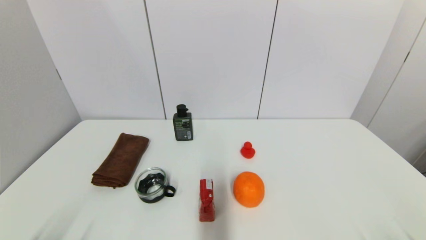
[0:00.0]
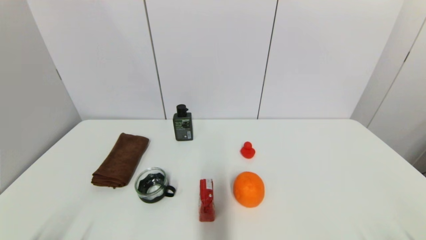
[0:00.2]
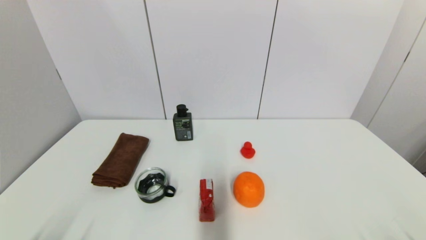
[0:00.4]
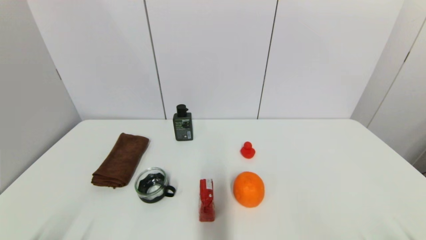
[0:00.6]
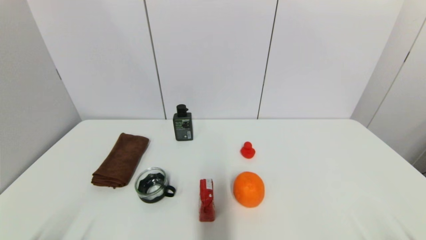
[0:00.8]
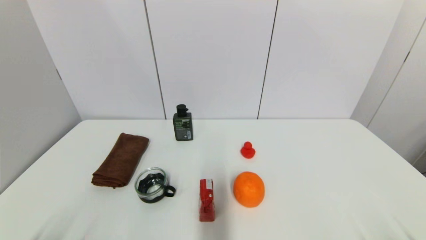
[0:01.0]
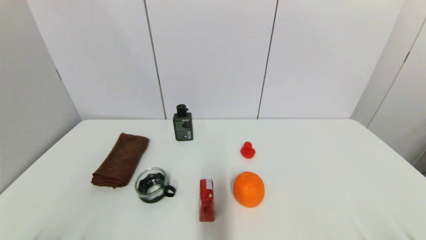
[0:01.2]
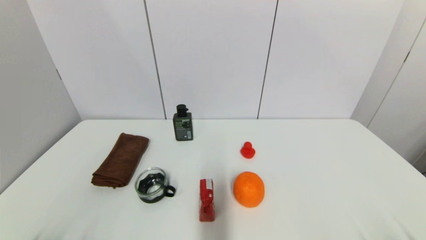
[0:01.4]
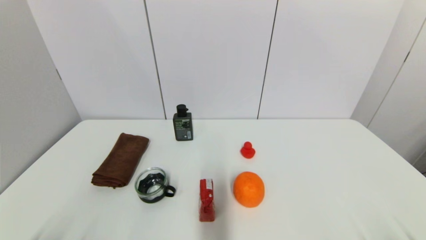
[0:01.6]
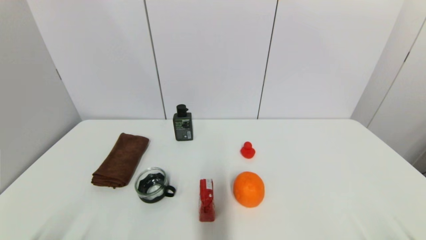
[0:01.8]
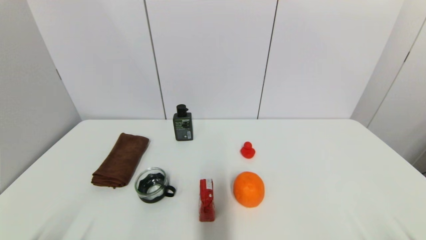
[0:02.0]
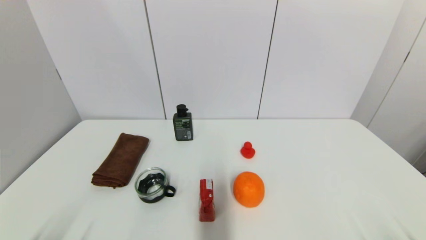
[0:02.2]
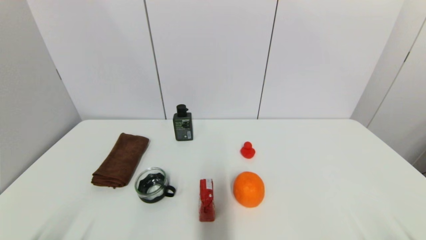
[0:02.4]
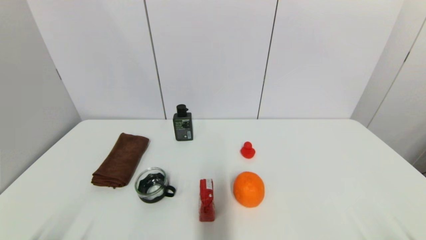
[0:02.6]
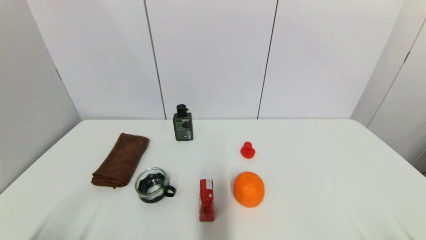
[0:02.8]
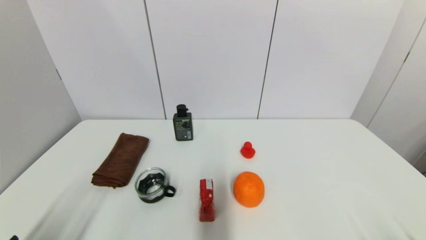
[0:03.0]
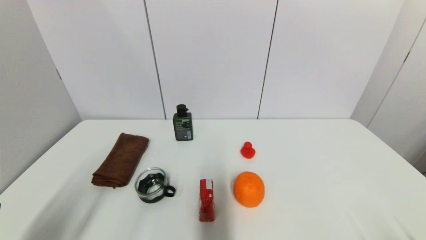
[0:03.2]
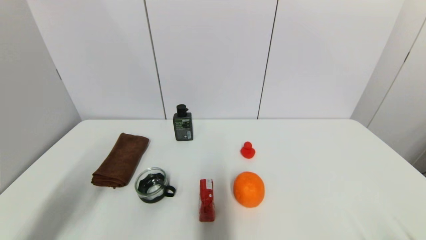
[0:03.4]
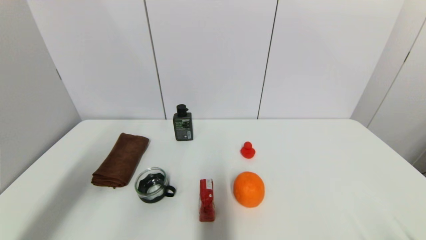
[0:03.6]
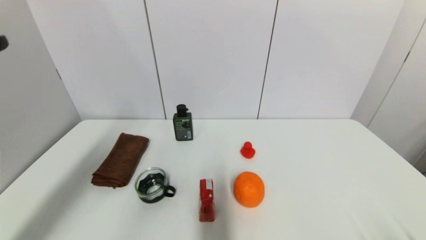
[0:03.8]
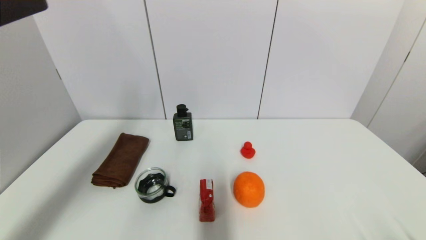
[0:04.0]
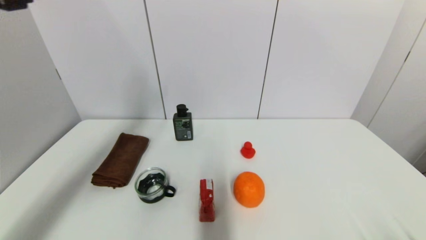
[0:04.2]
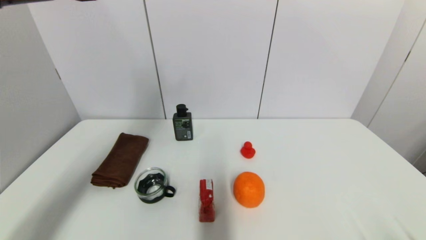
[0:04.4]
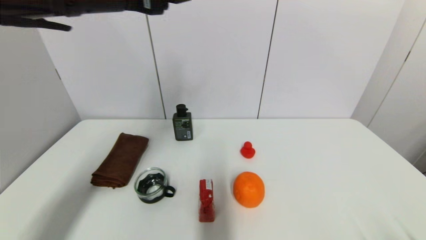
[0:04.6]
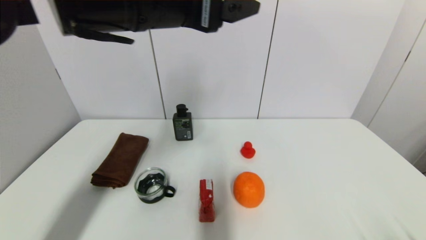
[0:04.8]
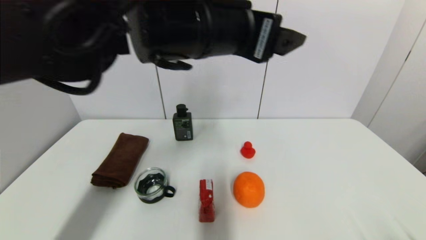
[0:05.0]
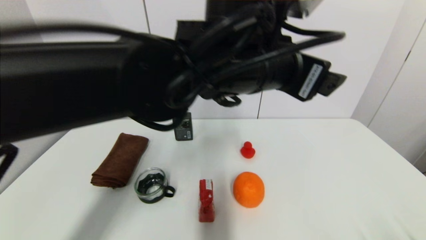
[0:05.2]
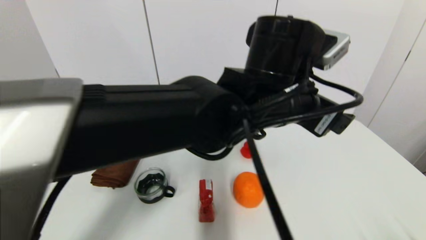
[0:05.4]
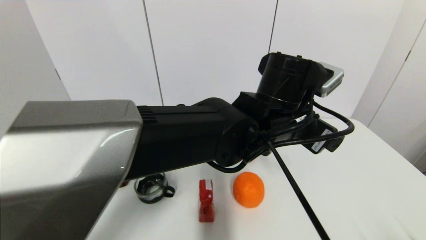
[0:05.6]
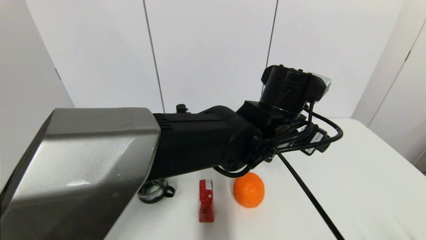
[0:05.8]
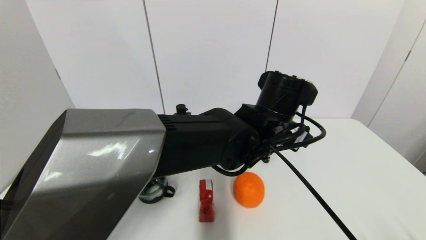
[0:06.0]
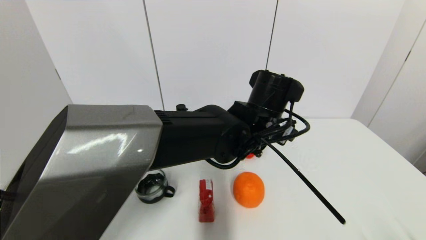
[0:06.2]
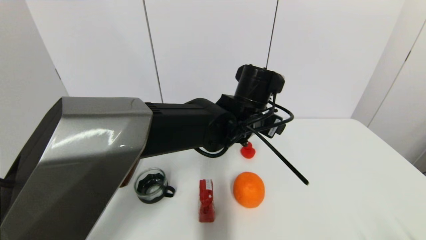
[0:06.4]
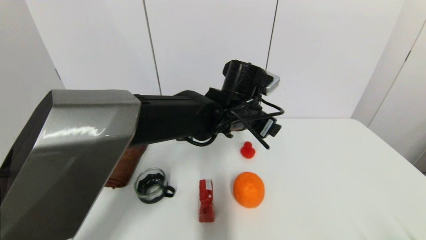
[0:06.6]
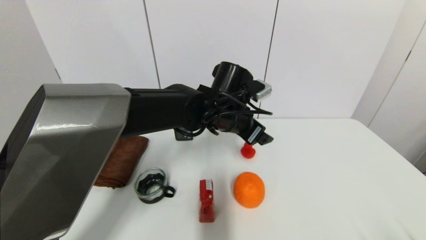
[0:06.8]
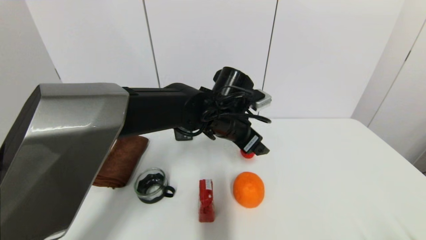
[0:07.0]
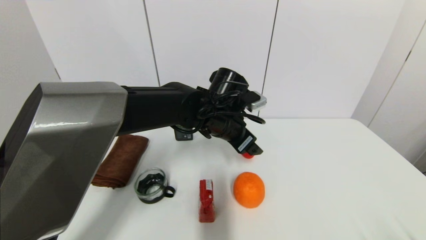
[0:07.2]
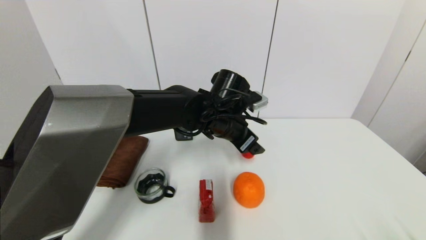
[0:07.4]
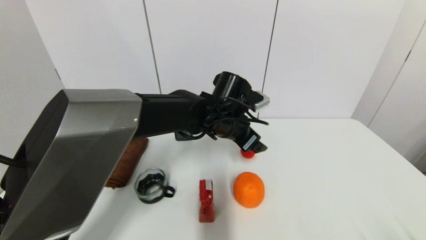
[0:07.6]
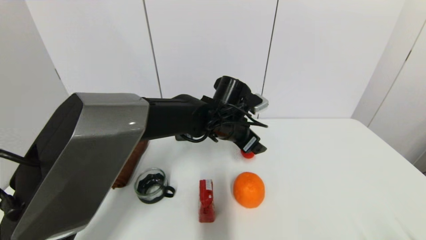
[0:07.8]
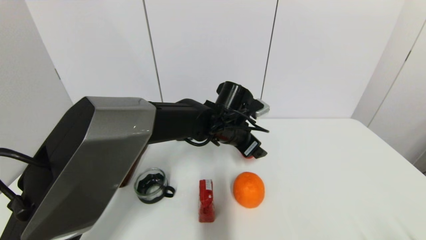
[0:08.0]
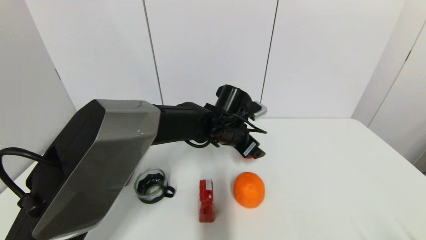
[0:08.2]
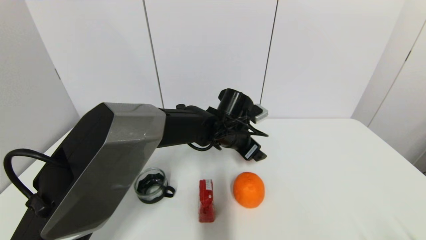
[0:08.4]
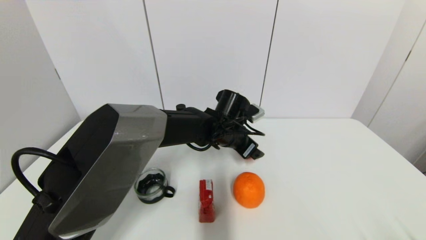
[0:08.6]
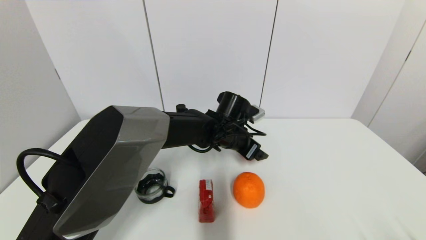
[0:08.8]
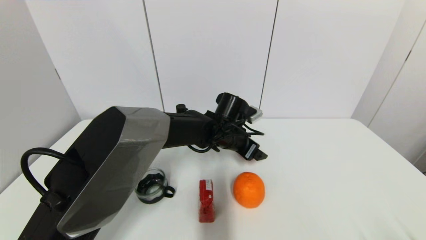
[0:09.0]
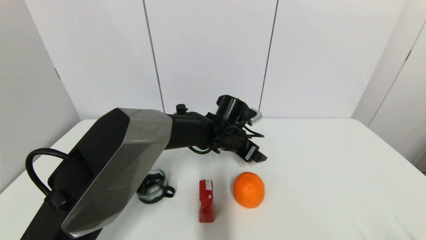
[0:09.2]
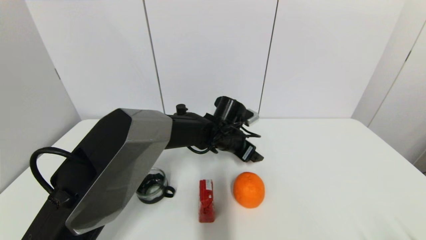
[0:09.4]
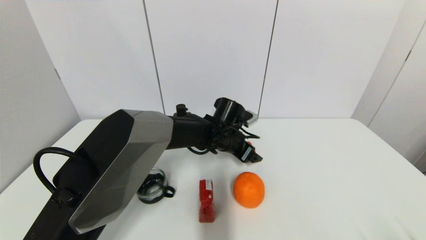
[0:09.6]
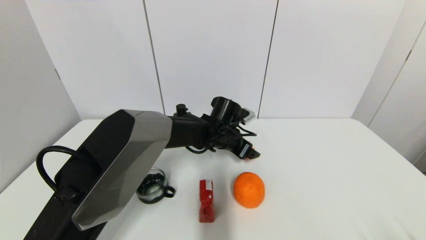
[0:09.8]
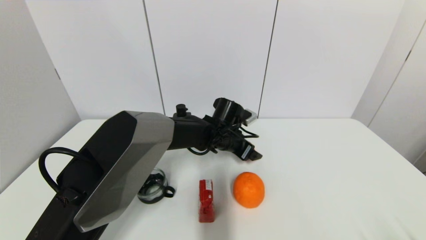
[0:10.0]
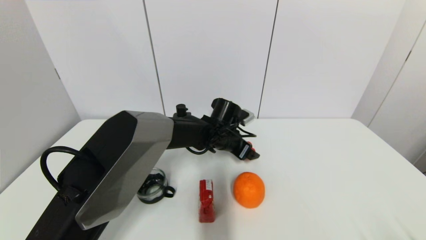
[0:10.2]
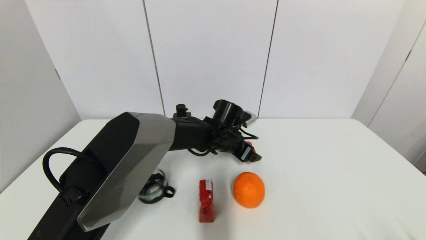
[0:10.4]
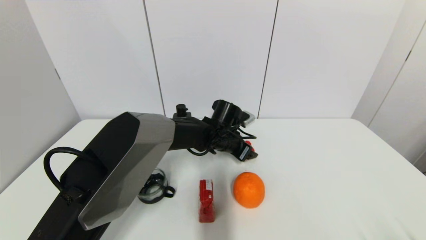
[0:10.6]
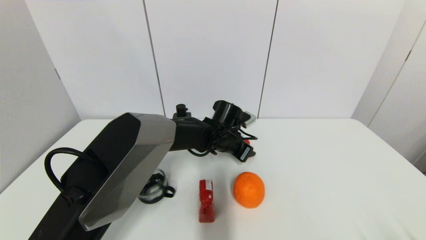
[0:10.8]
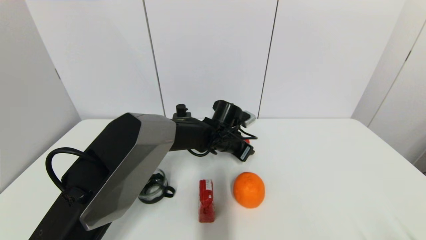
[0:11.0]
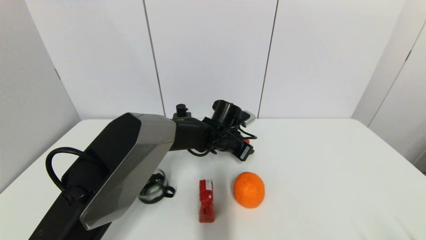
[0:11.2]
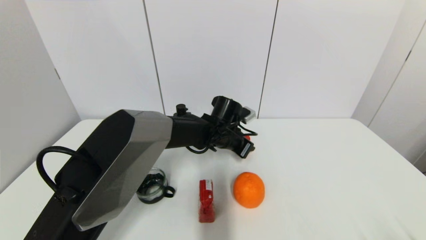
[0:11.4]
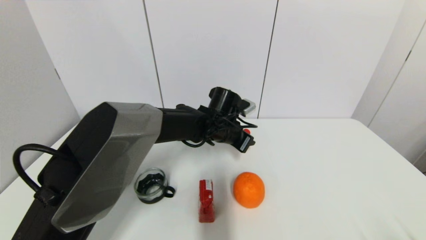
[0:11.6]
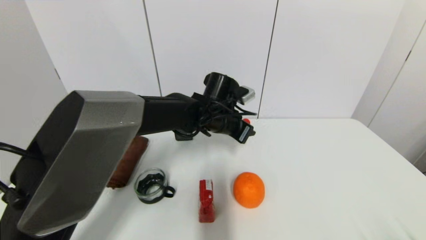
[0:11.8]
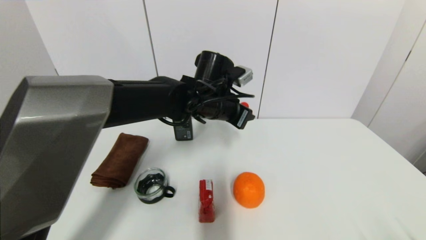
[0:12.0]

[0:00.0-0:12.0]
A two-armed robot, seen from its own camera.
Step, 0:03.0 to 0:11.6: Grasp the red duck with left gripper.
0:00.0 to 0:01.6: Both grippers stay put.
0:03.0 to 0:04.4: The left gripper moves upward, forward and to the right, roughly 35 cm.
0:04.4 to 0:06.0: The left gripper shifts approximately 35 cm to the right and downward.
0:06.0 to 0:07.6: The left gripper travels forward and to the left by roughly 10 cm.
0:07.6 to 0:09.0: The left gripper moves downward, some 5 cm.
0:09.0 to 0:10.4: There are only small adjustments of the grippers.
0:10.4 to 0:12.0: The left gripper is displaced upward by some 10 cm, and closes up.

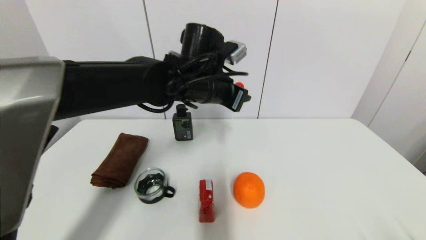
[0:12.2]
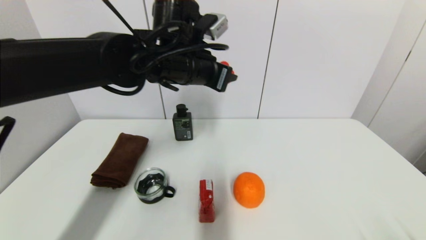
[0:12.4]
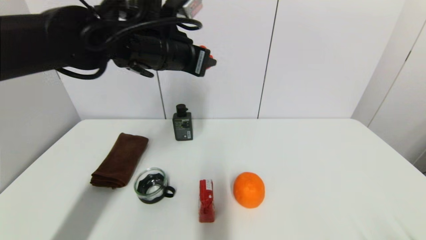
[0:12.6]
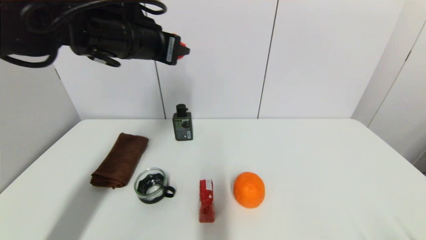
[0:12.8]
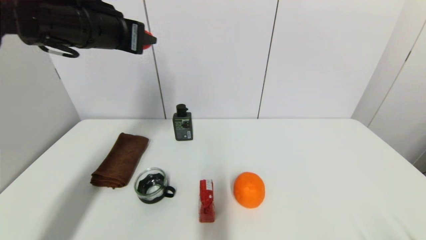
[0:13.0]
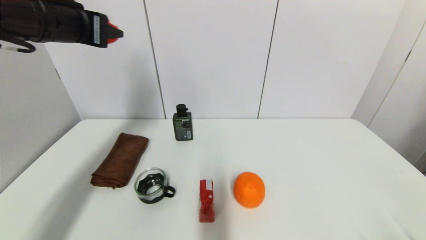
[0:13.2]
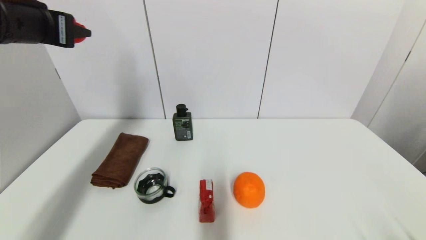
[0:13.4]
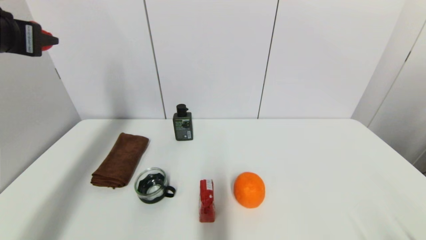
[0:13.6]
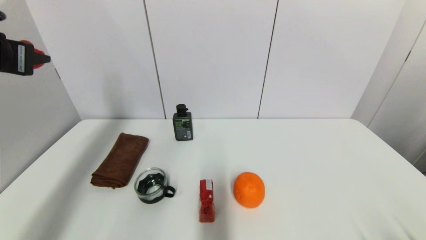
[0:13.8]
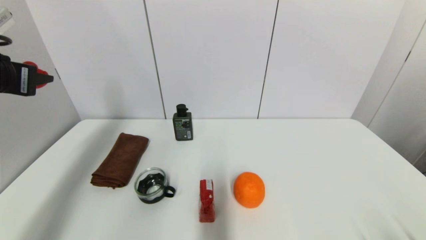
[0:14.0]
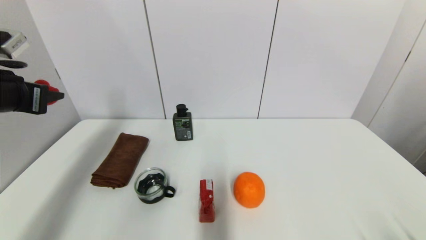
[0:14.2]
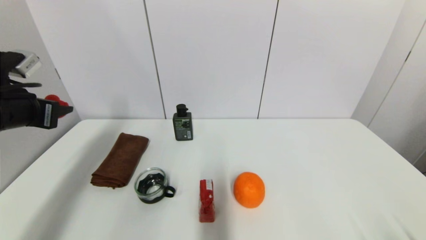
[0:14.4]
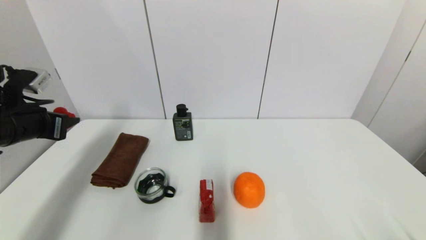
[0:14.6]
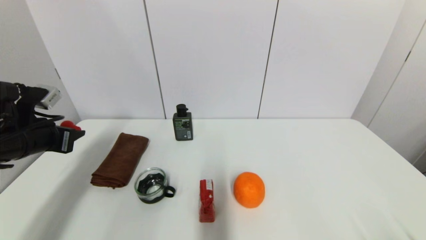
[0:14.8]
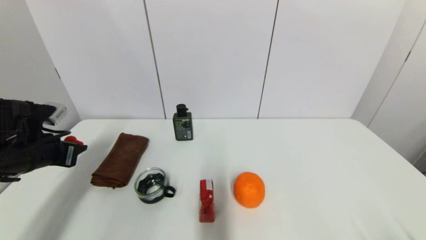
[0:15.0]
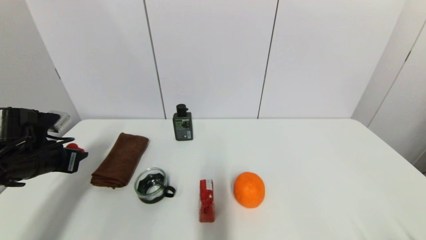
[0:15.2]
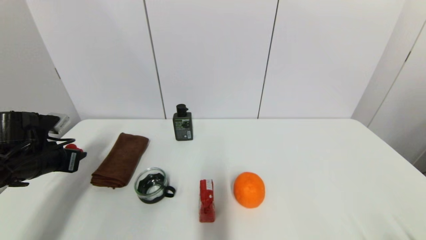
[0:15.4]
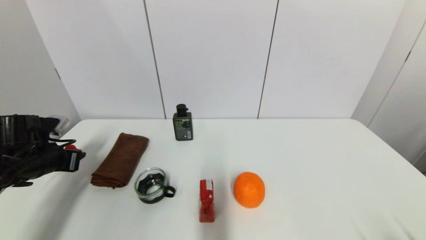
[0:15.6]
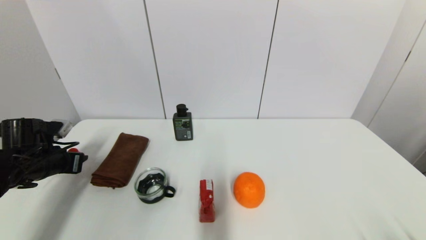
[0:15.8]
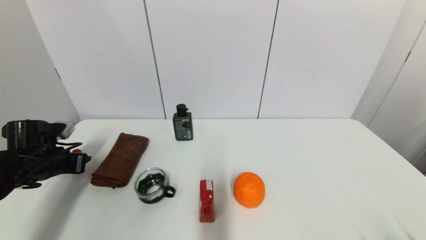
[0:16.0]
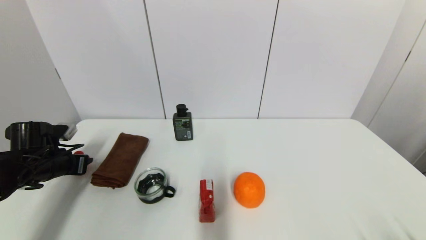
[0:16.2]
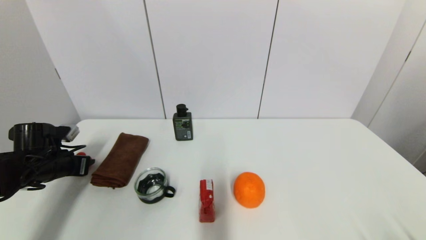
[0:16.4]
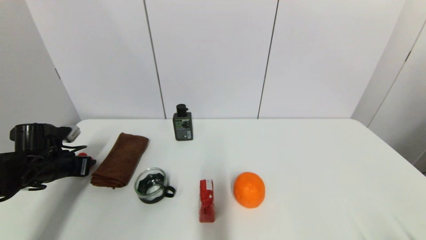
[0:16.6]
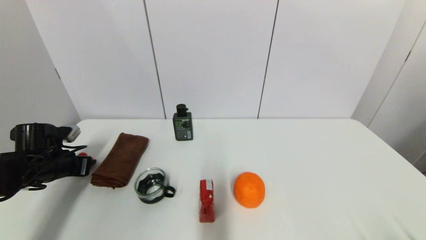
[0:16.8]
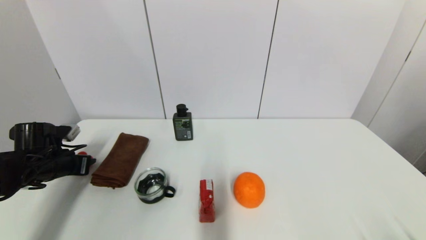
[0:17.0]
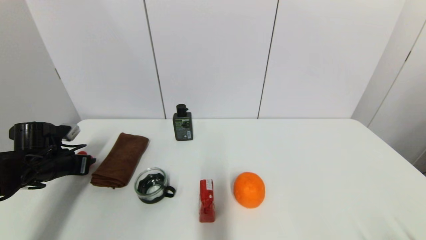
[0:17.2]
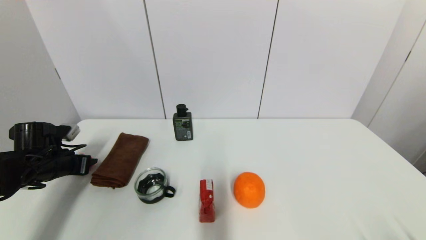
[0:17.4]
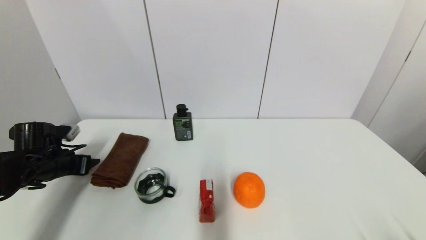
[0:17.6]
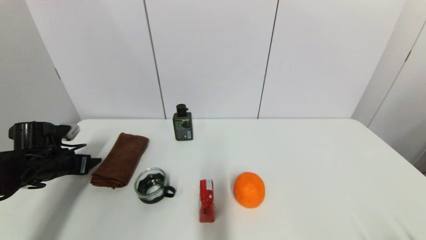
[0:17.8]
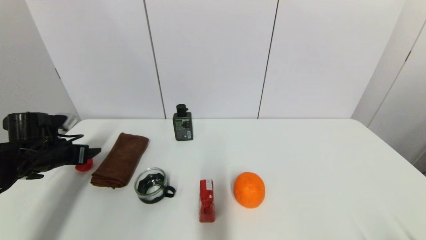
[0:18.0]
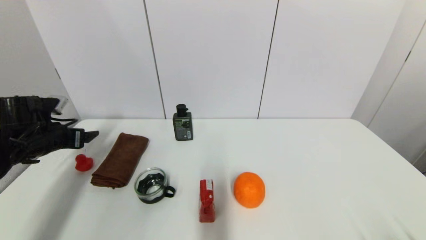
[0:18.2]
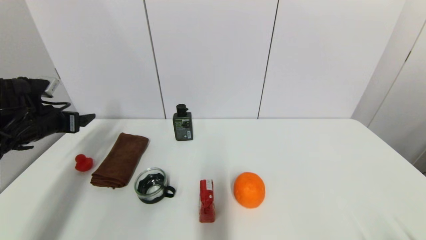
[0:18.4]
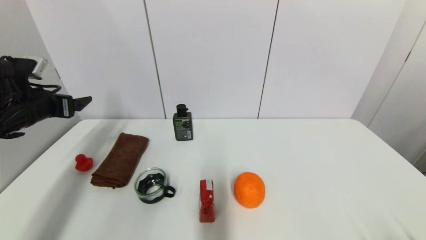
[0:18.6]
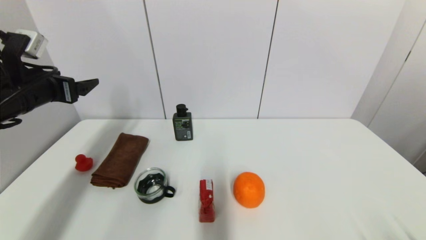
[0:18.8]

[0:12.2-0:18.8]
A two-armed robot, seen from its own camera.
Step, 0:12.2 to 0:18.0: Place the red duck on the table with left gripper.
0:12.2 to 0:13.8: The left gripper heads to the left, covering approximately 30 cm.
0:13.8 to 0:15.4: The left gripper is displaced downward by approximately 20 cm.
0:15.4 to 0:17.2: The left gripper changes place by some 5 cm.
0:17.2 to 0:18.8: The left gripper goes approximately 15 cm upward, and opens up.
